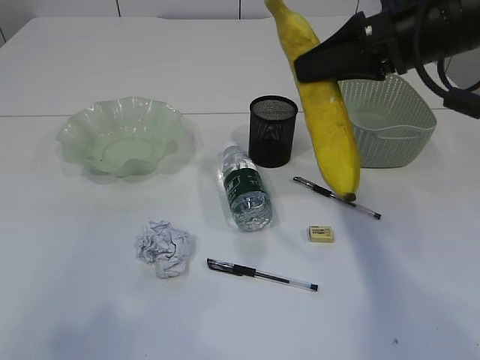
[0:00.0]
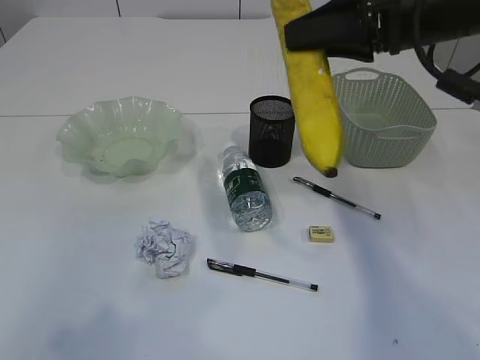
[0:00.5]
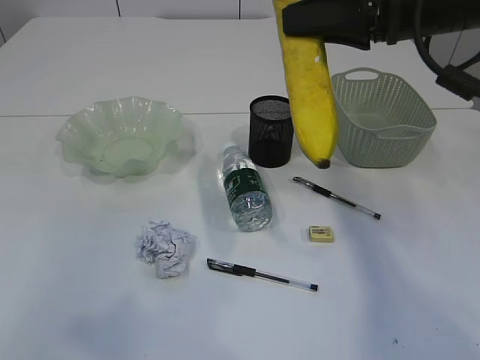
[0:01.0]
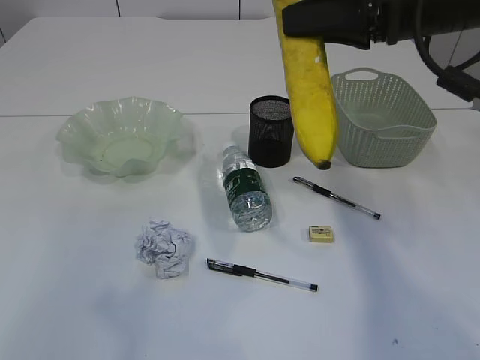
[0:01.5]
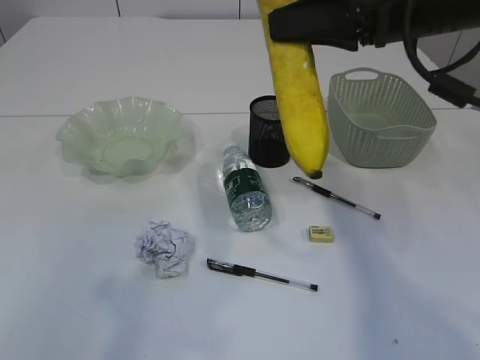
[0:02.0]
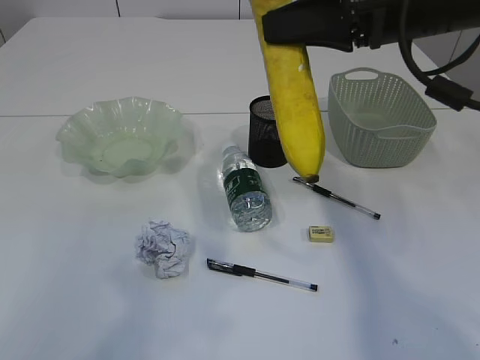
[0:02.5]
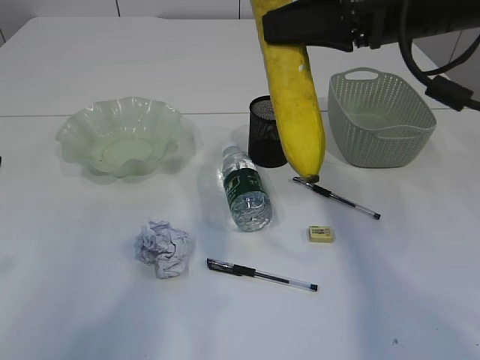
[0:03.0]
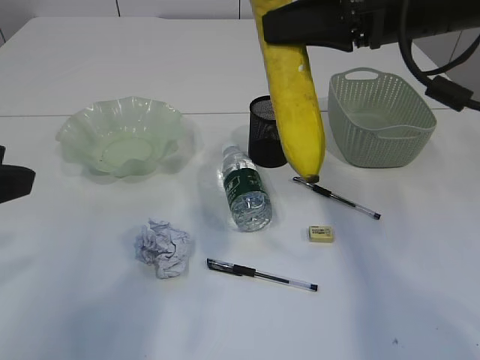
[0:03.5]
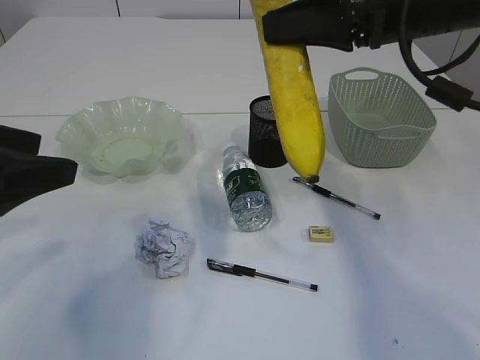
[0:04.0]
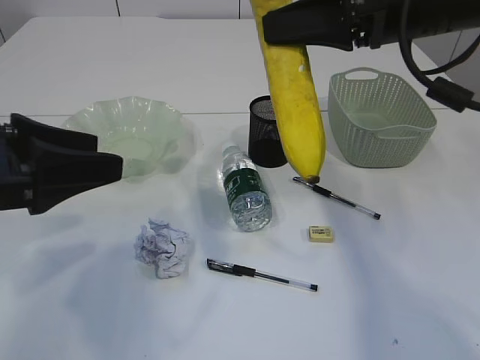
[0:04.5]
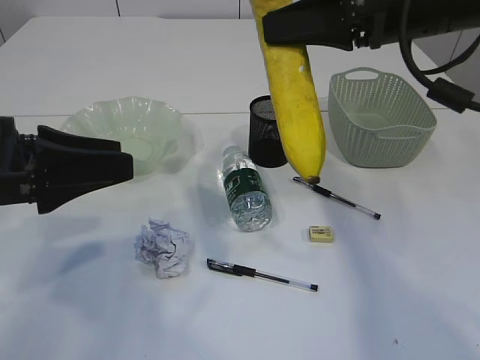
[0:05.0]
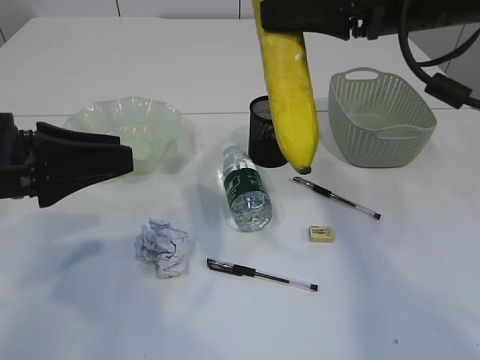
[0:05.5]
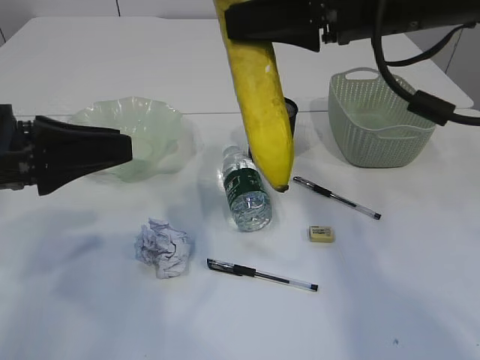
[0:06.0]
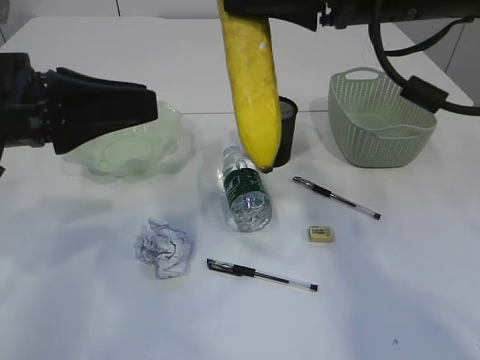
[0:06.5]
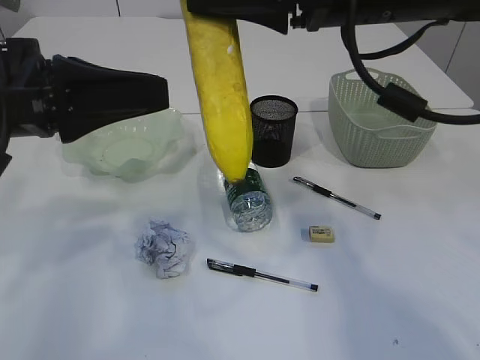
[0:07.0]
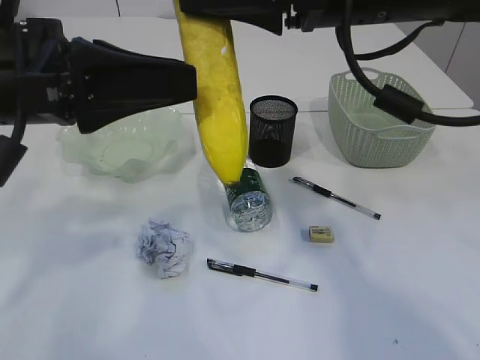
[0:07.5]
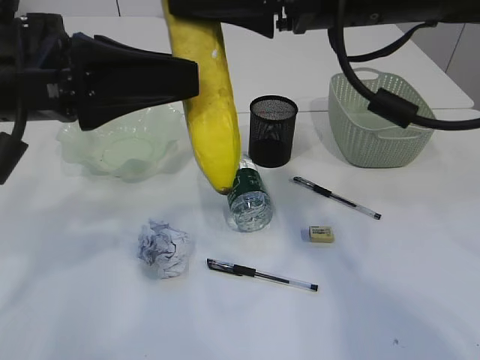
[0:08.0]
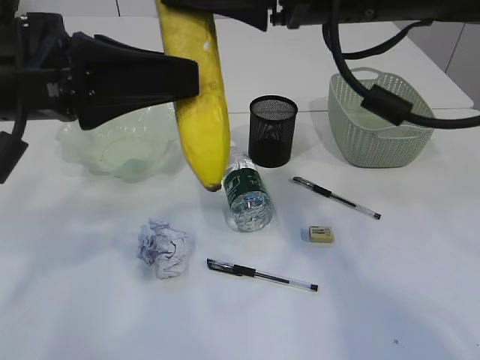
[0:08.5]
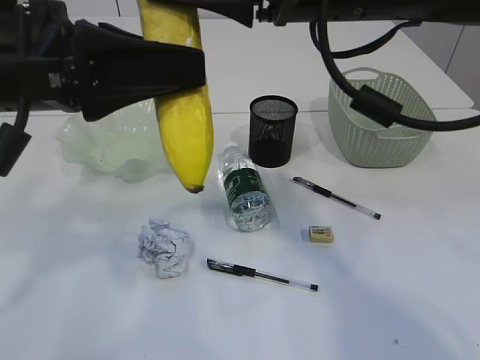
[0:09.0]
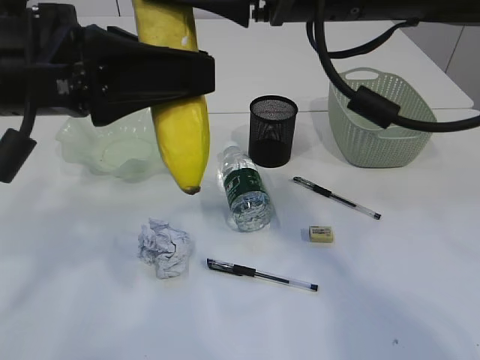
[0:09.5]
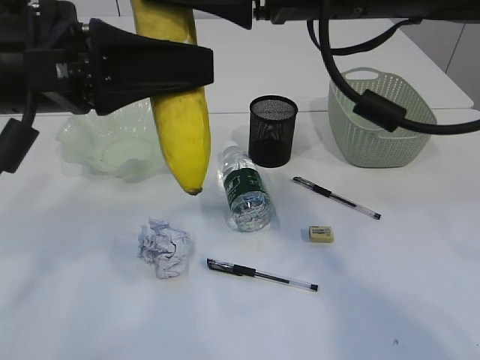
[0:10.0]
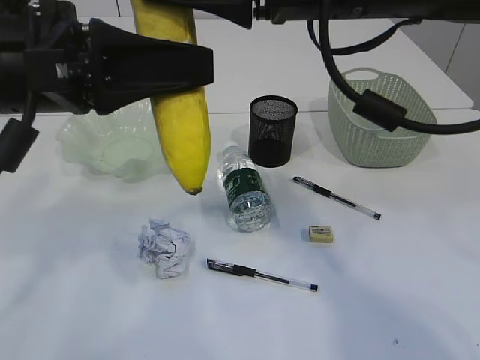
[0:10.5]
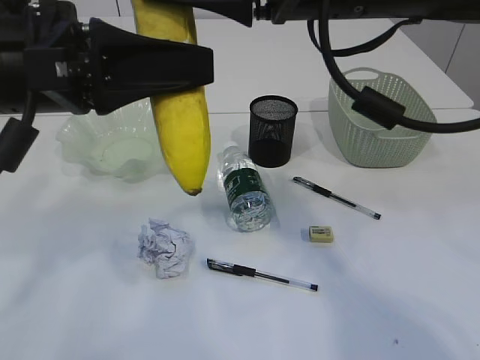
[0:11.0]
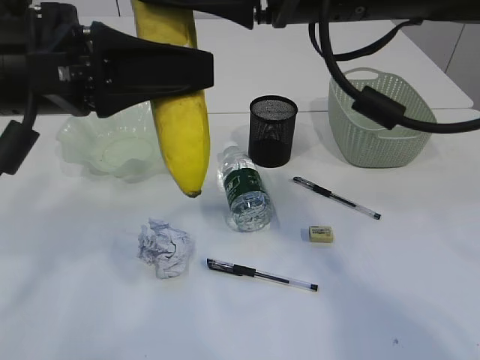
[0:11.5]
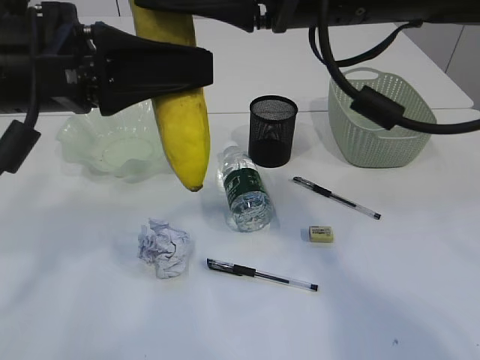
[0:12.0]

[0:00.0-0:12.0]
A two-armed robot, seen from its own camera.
0:00.0 to 0:02.0: The left gripper changes place by about 5 cm.
0:02.0 to 0:04.0: The left gripper travels forward and downward by about 15 cm.
0:04.0 to 0:06.0: The left gripper moves about 5 cm.
0:06.0 to 0:08.0: The left gripper shifts roughly 10 cm upward and to the right.
0:08.0 to 0:10.0: The left gripper closes.
0:10.0 to 0:12.0: The grippers make only small movements.

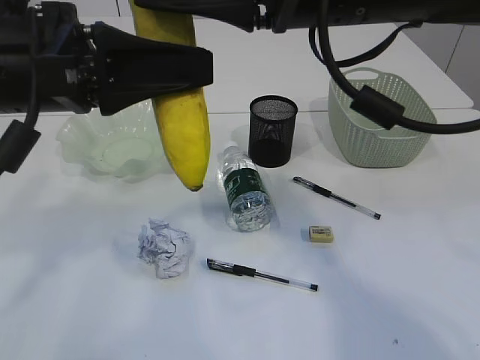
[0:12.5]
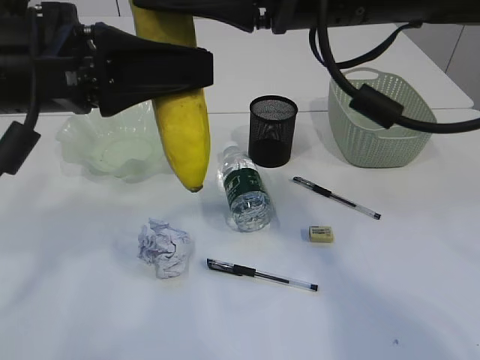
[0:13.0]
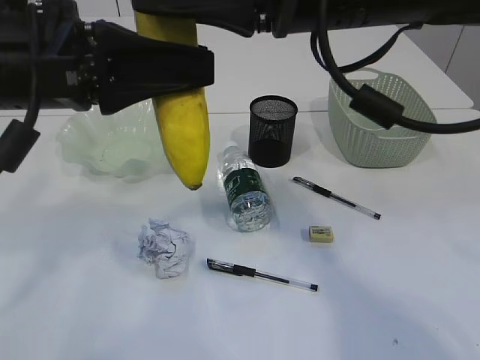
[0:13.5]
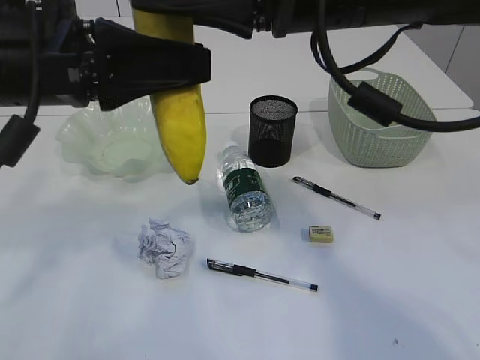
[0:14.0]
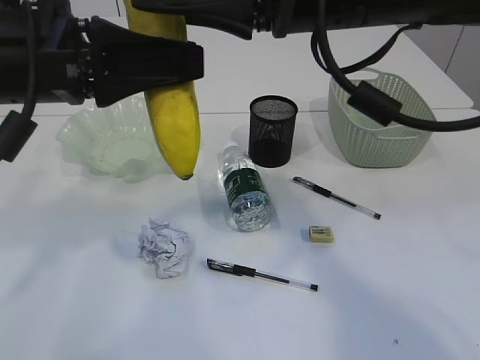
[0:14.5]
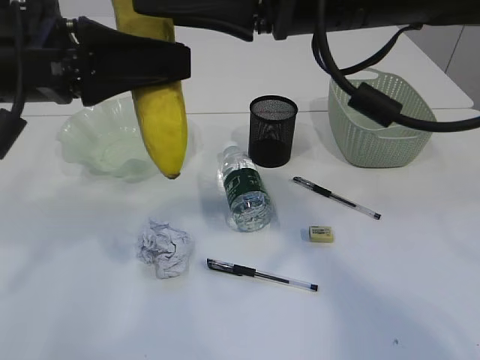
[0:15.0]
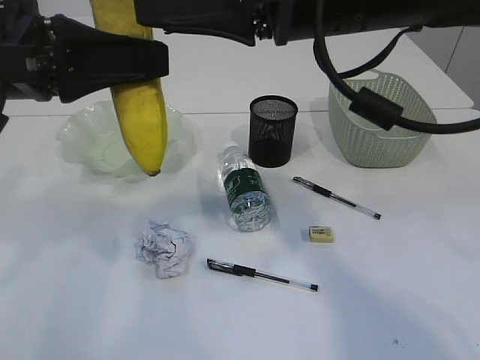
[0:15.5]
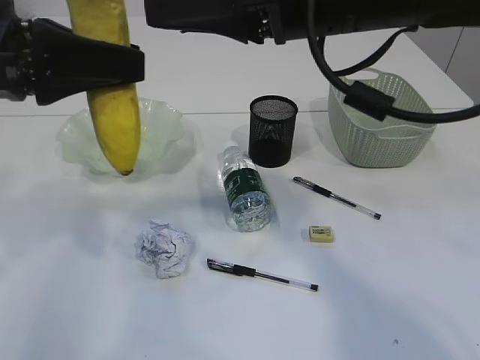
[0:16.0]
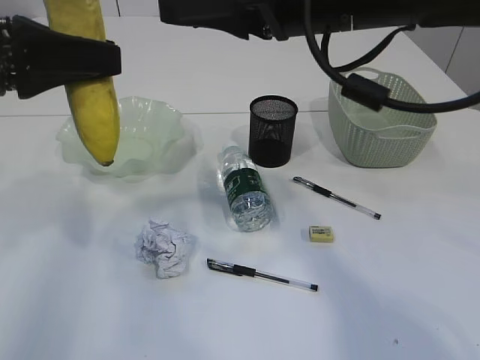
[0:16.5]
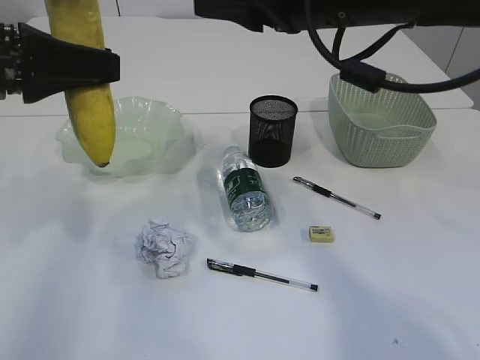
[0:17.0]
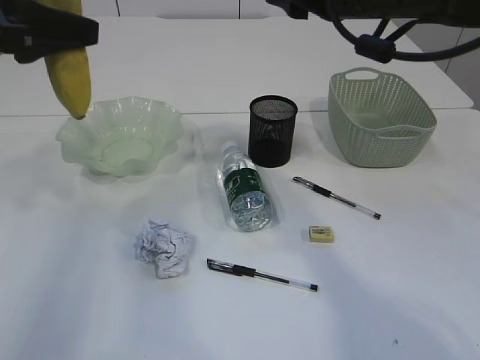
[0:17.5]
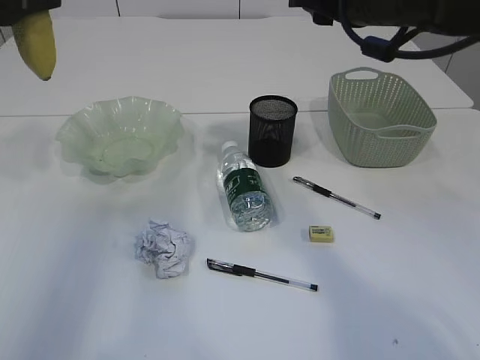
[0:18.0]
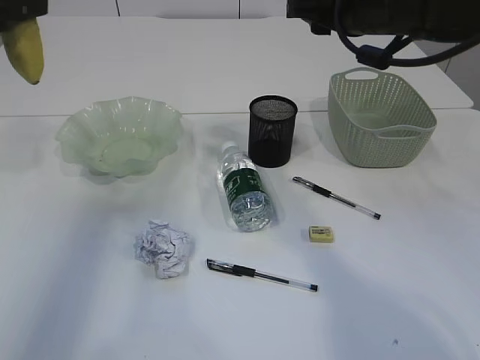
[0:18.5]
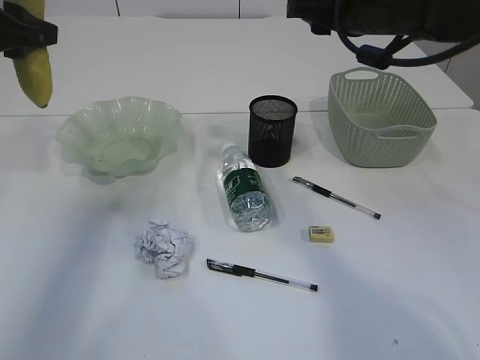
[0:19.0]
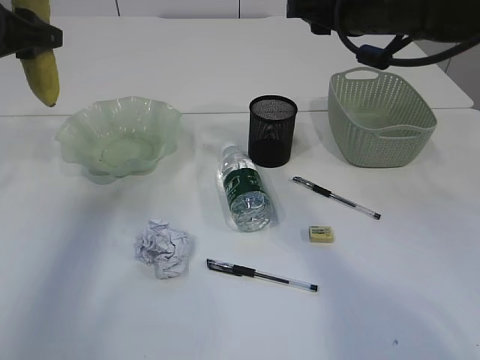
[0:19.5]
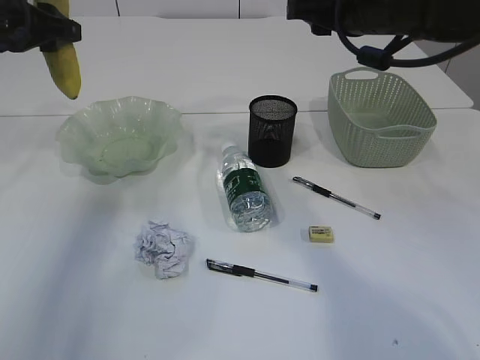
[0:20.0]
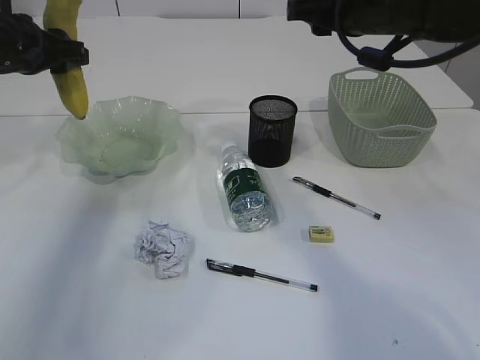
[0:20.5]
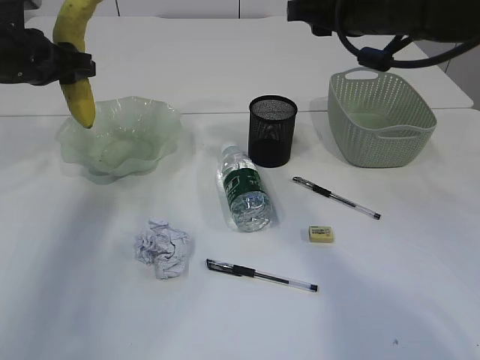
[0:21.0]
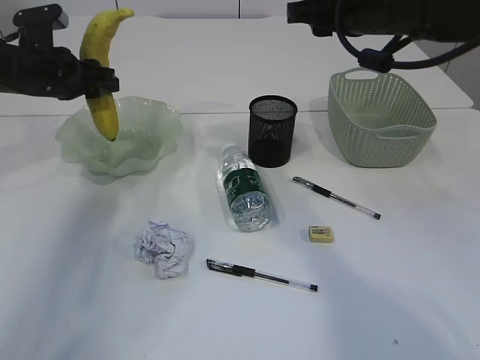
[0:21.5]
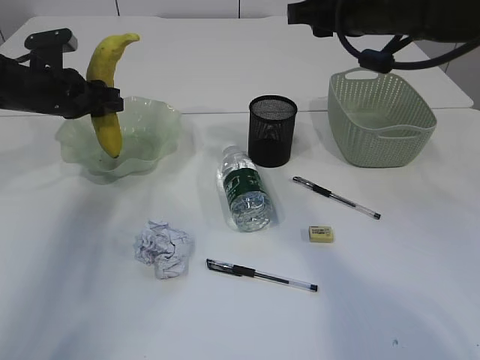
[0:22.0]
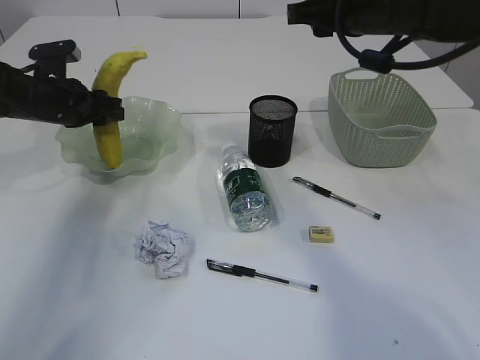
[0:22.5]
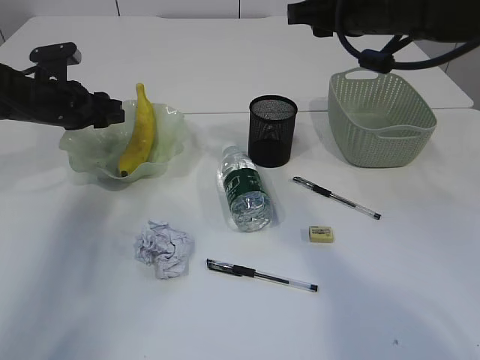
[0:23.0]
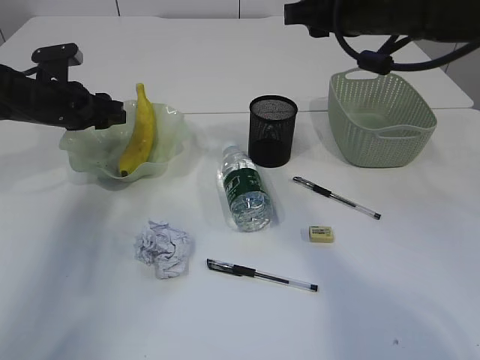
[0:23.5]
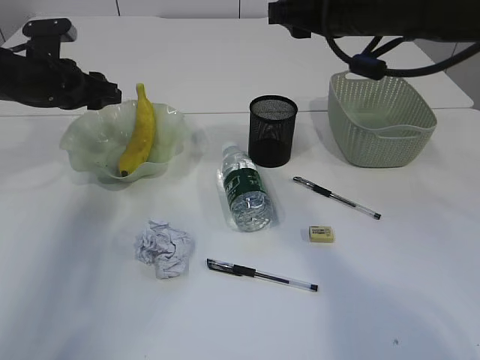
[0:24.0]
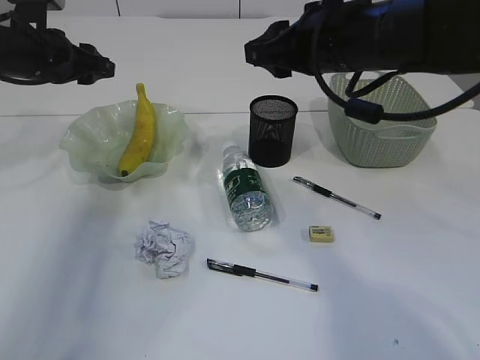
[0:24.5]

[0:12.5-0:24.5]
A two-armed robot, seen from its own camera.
Step, 0:12.5 to 0:16.0: Hand over the banana.
Step, 0:16.5 to 0:24.0: Place the banana in the plate.
0:12.5 to 0:14.5: There are only small adjustments of the grippers.
0:14.5 to 0:16.5: The left gripper moves to the left, about 5 cm.
0:16.5 to 0:18.5: The left gripper is displaced forward and to the left by some 10 cm. The right gripper travels forward and to the right by roughly 10 cm.
0:18.5 to 0:20.5: The left gripper moves forward and downward, roughly 10 cm.
0:20.5 to 0:22.5: The left gripper travels downward by some 10 cm.
0:22.5 to 0:24.5: The left gripper moves upward, about 5 cm.

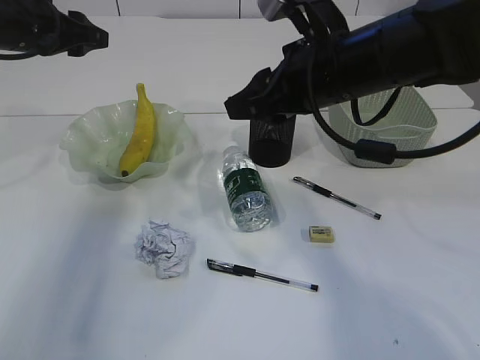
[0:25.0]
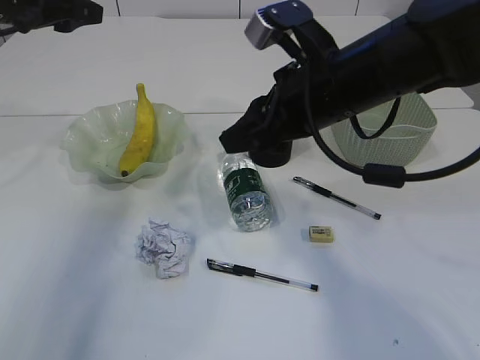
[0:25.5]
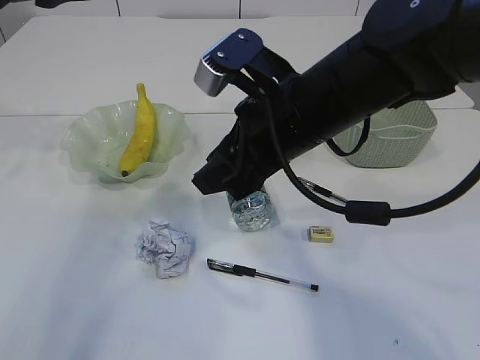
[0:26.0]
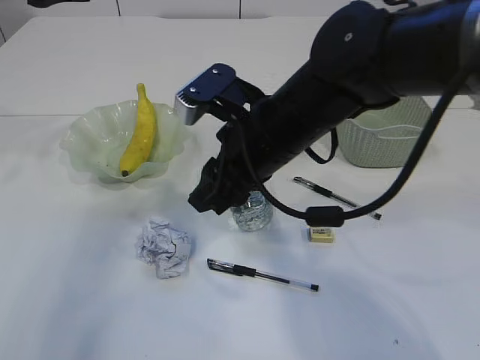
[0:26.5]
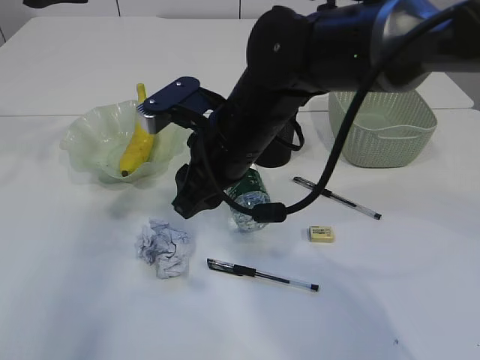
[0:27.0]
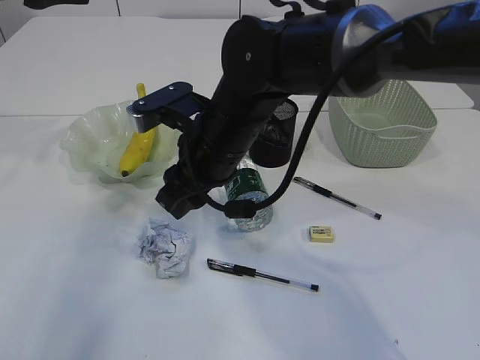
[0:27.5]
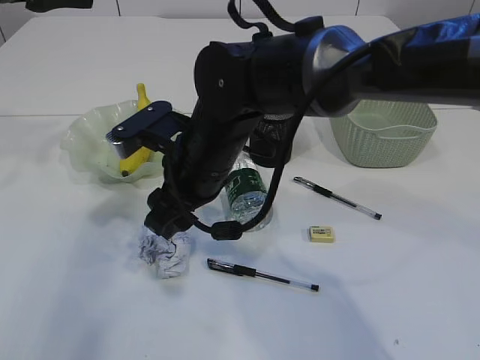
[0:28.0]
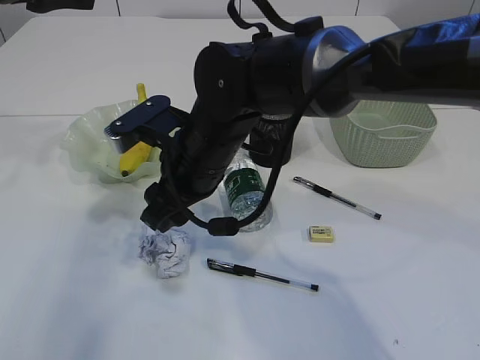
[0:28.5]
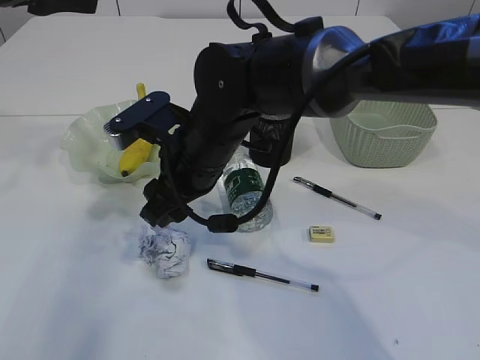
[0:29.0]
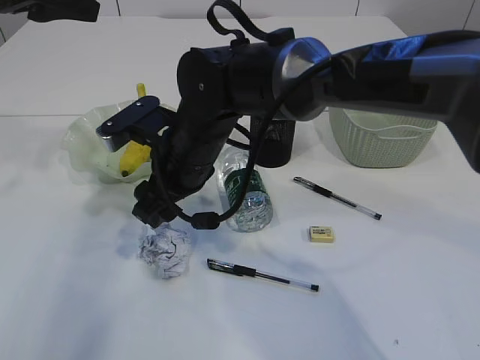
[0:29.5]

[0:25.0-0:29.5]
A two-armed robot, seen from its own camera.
0:25.0 to 0:27.0: The left gripper heads upward and backward, covering some 10 cm. Meanwhile the right gripper travels to the left and downward by about 10 cm.
0:27.0 to 0:29.5: The right gripper changes place by roughly 5 cm.
